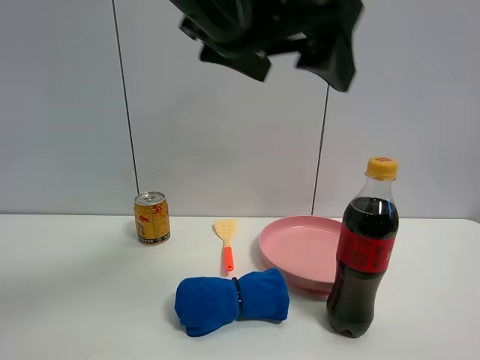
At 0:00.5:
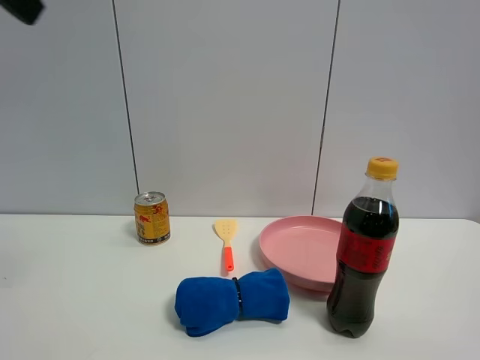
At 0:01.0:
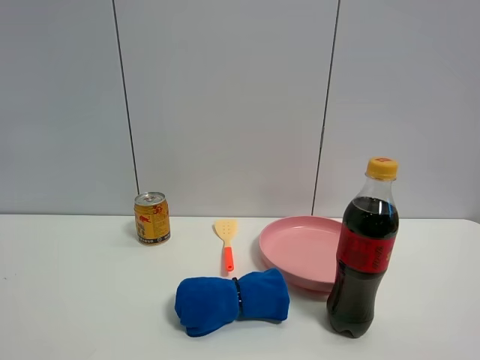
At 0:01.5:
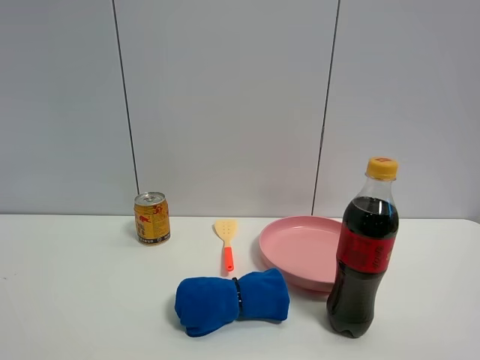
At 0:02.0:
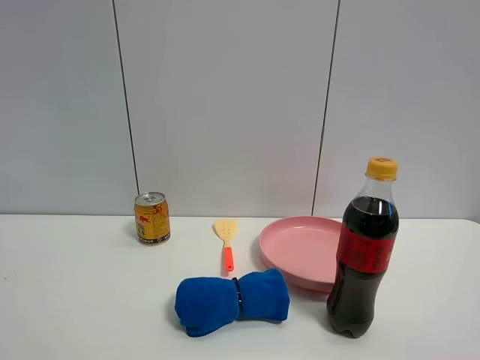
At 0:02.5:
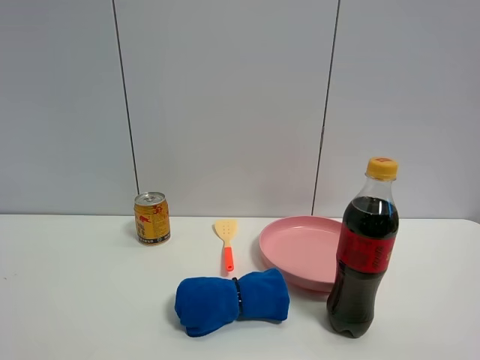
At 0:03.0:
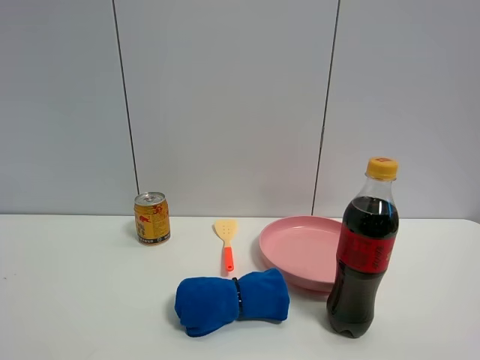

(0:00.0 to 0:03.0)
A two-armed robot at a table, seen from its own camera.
Task of the whole recording: the gripper move the object.
0:00.0 - 0:01.5: The left gripper moves to the left and backward, some 35 cm.

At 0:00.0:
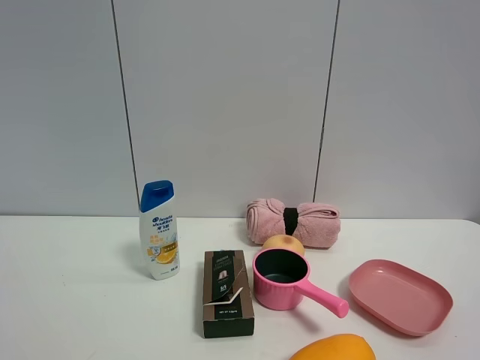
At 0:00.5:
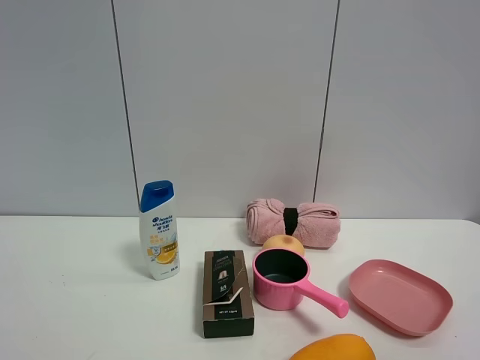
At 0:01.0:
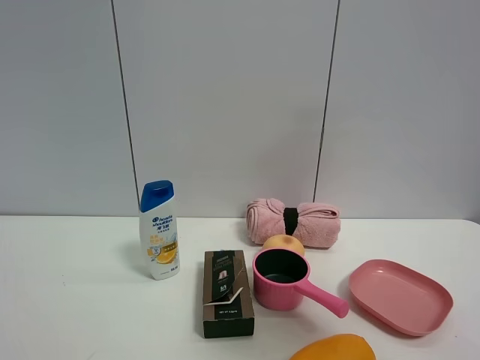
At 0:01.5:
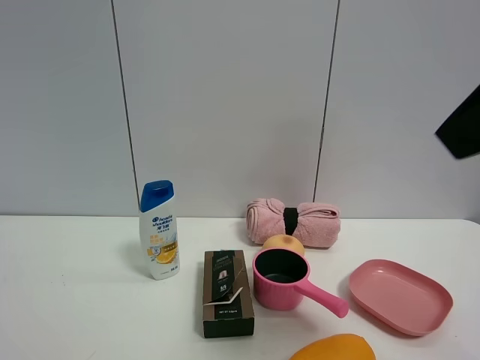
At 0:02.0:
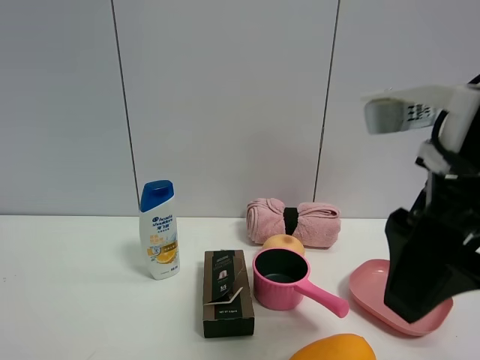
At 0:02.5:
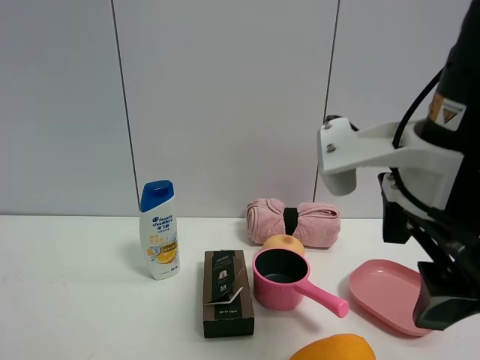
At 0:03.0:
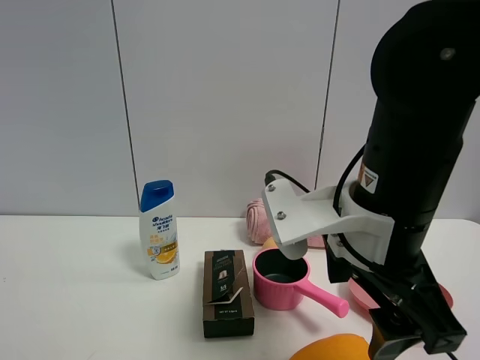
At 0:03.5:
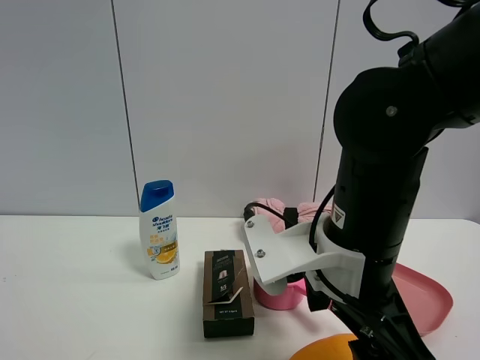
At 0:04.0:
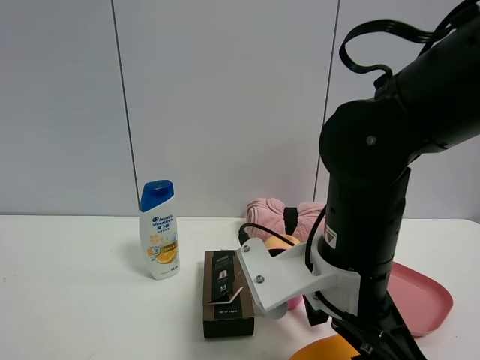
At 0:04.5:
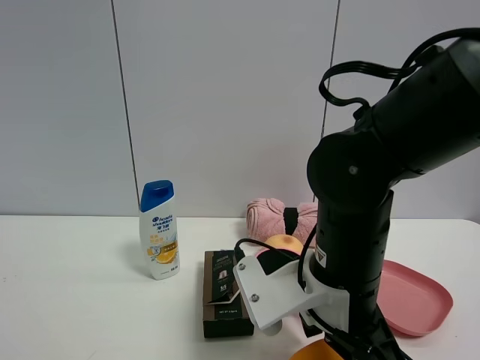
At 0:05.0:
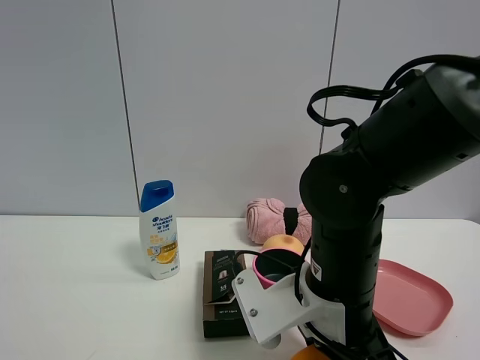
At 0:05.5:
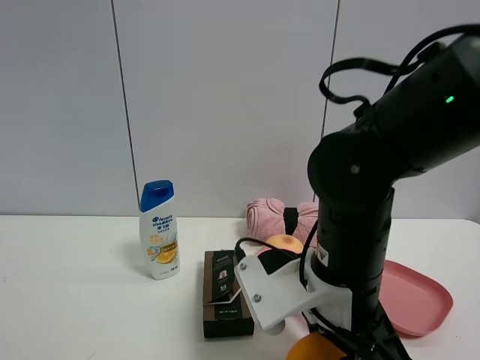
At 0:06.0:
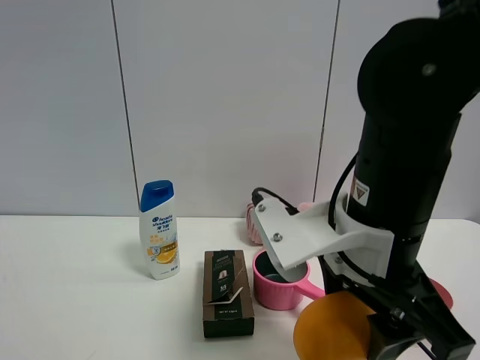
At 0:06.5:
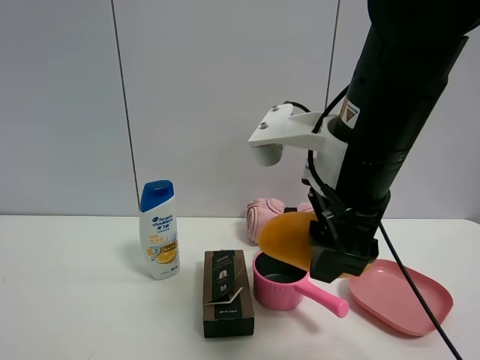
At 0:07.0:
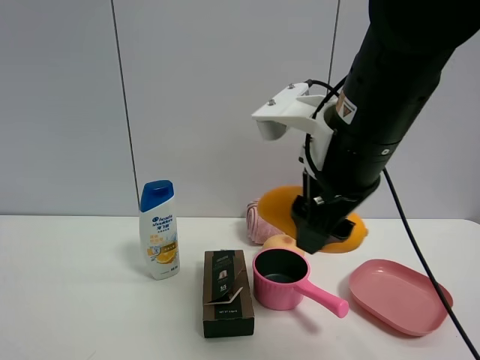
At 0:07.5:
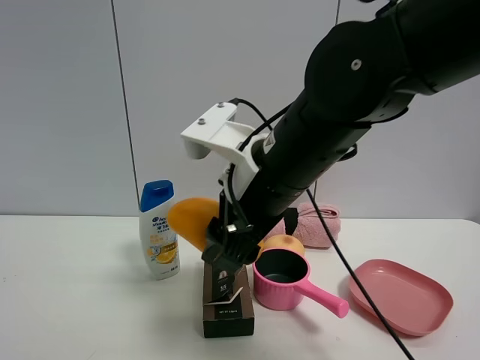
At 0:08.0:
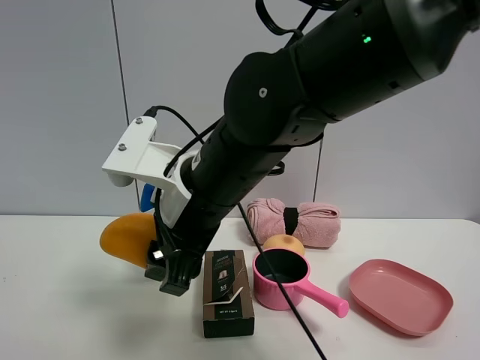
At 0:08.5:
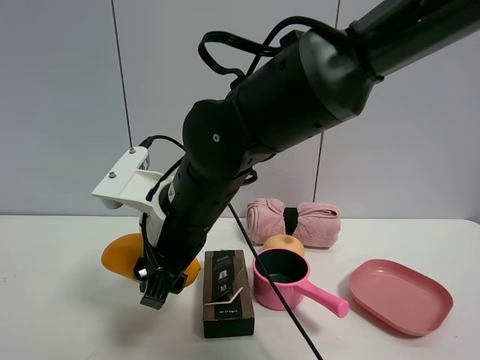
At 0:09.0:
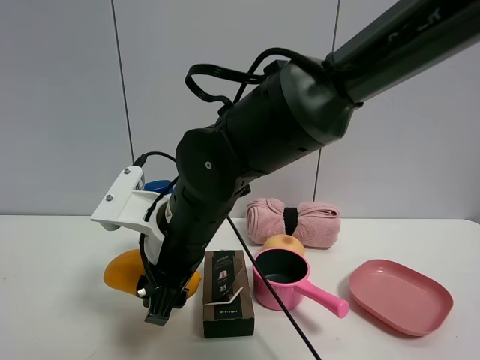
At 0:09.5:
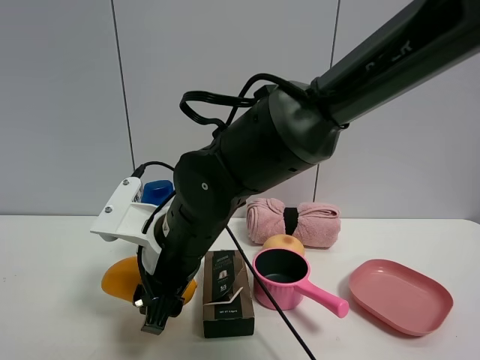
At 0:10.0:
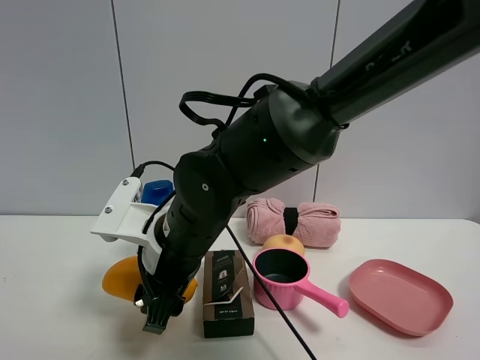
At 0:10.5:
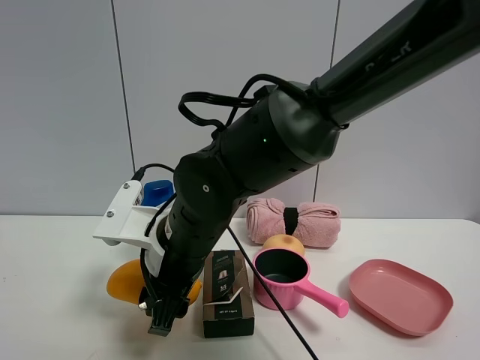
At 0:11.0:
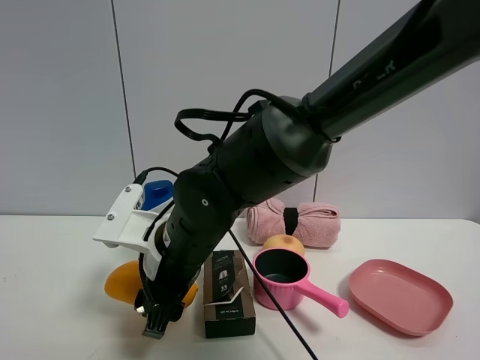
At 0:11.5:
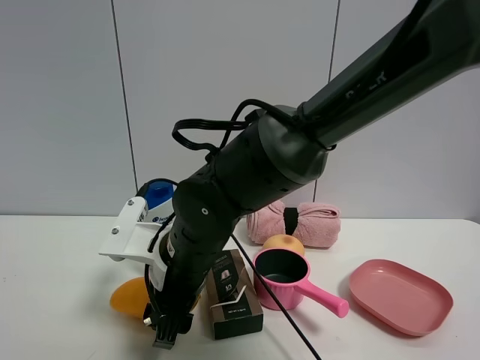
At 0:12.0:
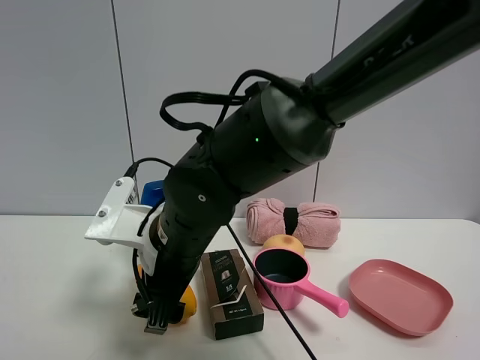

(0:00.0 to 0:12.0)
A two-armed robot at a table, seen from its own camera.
Task of the whole recording: the gripper move the object.
Step, 0:00.0 - 0:05.0: Grasp the mango with the right gripper.
Step, 0:05.5 - 0:11.5: Place the mango on the table with the right gripper.
0:00.0 - 0:02.0: The right gripper travels forward and to the left by some 20 cm.
0:02.0 - 0:04.0: The right gripper heads downward, to the left and forward, covering approximately 15 cm.
0:04.0 - 0:06.0: The right gripper heads upward, covering about 5 cm, and closes its fingers.
0:06.0 - 0:08.0: The right gripper heads to the left, covering approximately 15 cm.
0:08.0 - 0:10.0: The right gripper shifts some 5 cm downward.
0:10.0 - 0:12.0: The right gripper opens.

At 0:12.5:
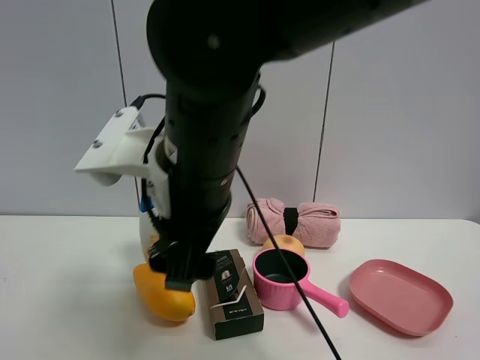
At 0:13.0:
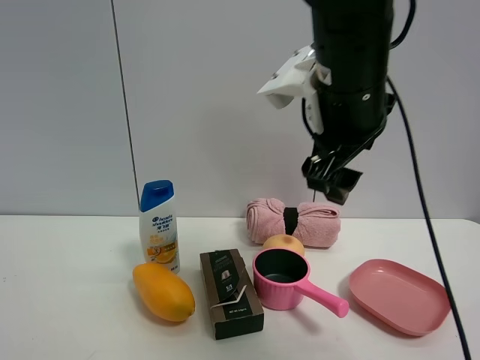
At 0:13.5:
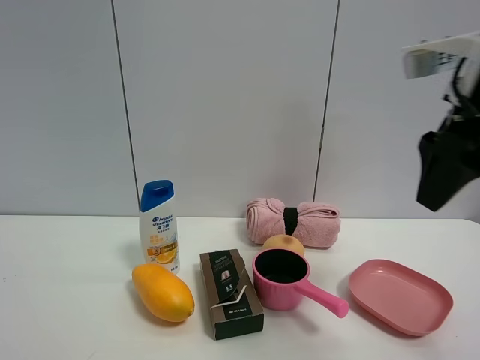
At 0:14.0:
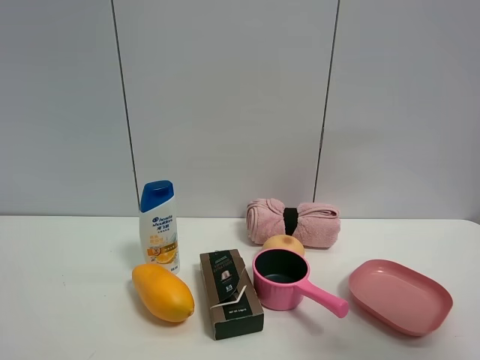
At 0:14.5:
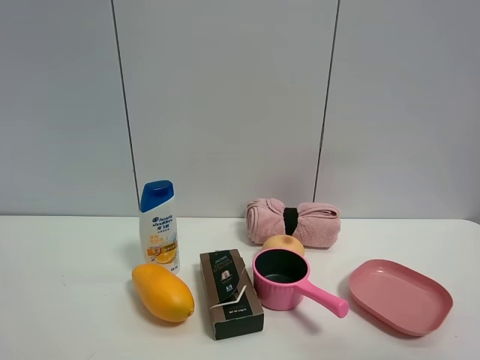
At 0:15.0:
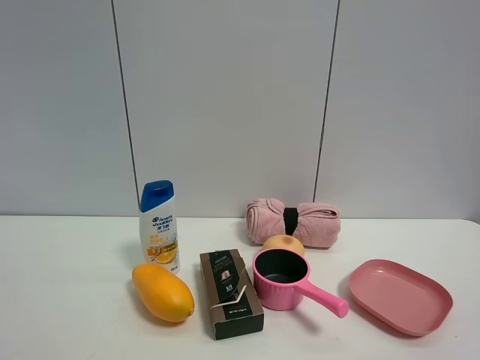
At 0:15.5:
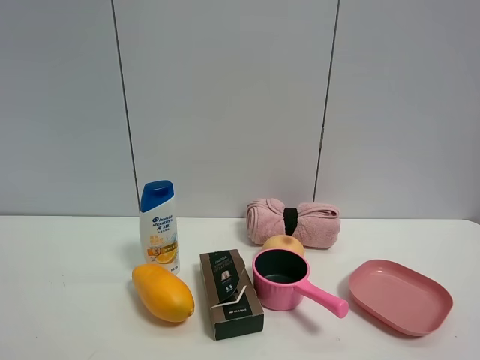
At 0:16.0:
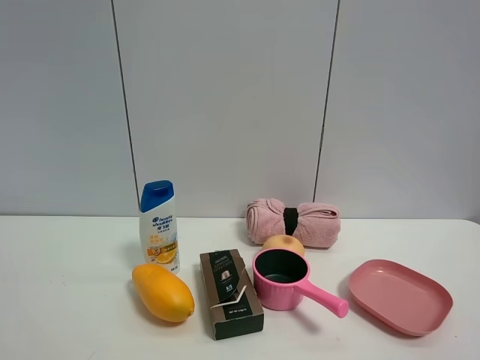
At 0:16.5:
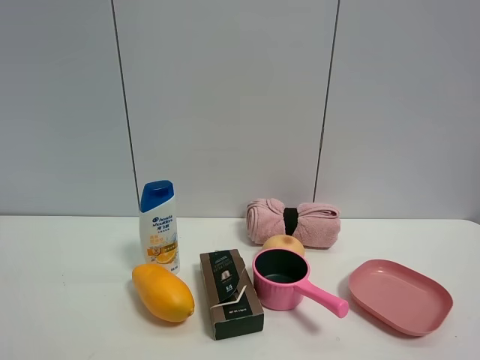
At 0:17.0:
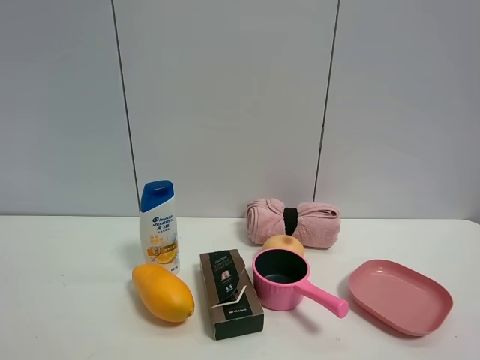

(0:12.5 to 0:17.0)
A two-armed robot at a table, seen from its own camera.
Task of the whole recording: the gripper move the object.
0:12.5 - 0:14.5: The right gripper moves to the right and backward, roughly 35 cm.

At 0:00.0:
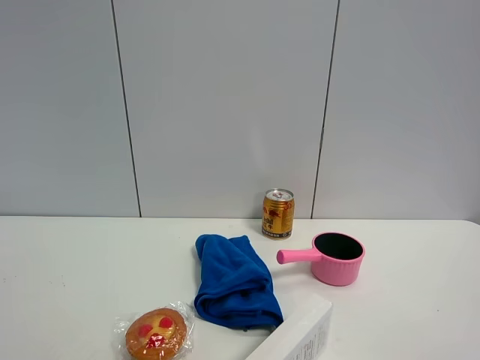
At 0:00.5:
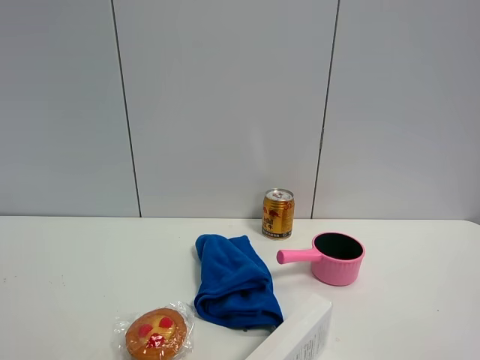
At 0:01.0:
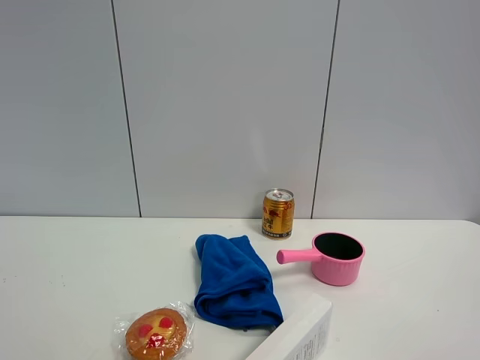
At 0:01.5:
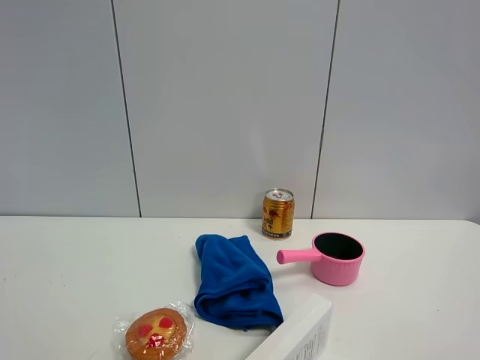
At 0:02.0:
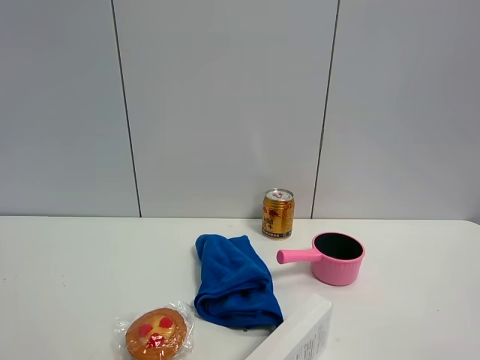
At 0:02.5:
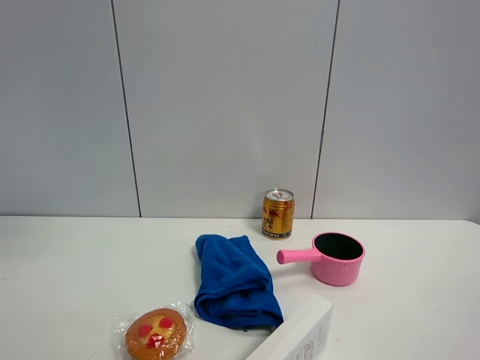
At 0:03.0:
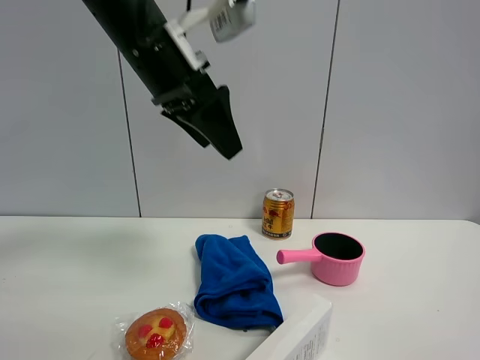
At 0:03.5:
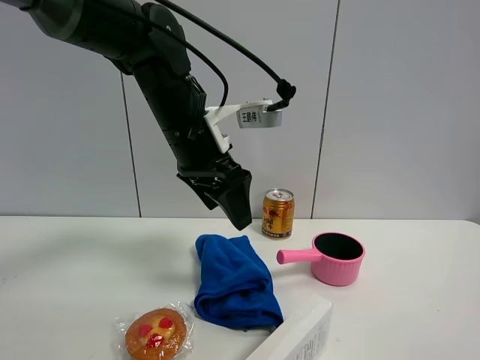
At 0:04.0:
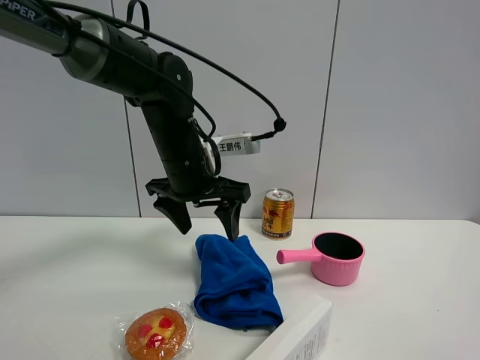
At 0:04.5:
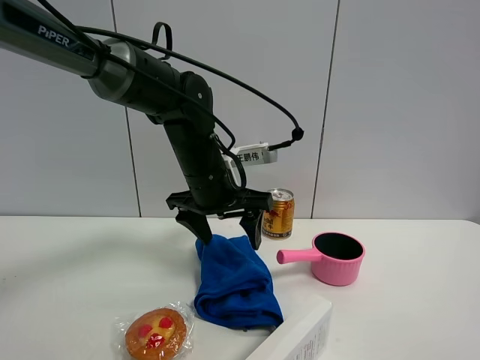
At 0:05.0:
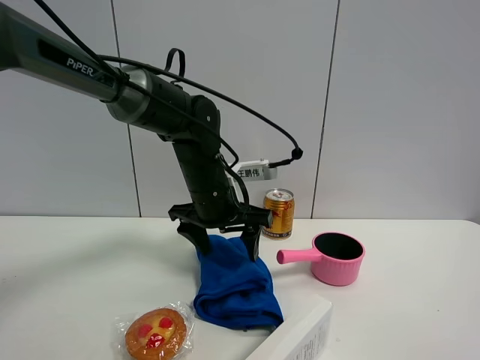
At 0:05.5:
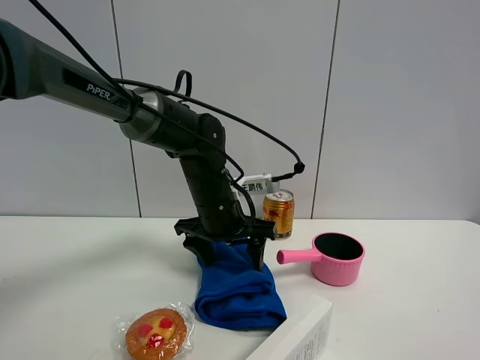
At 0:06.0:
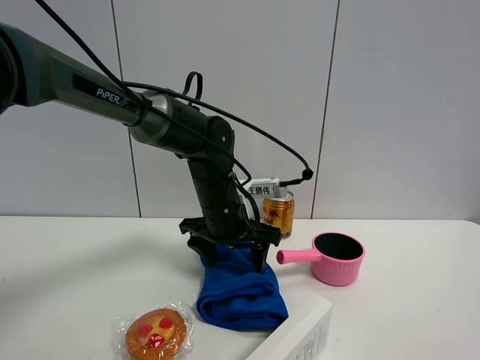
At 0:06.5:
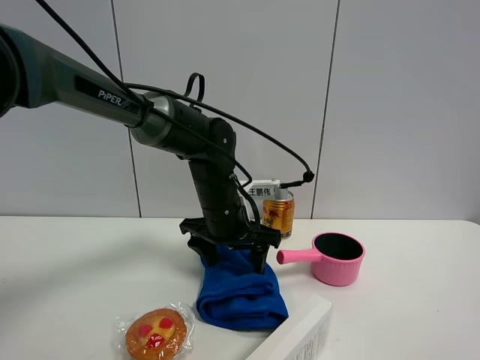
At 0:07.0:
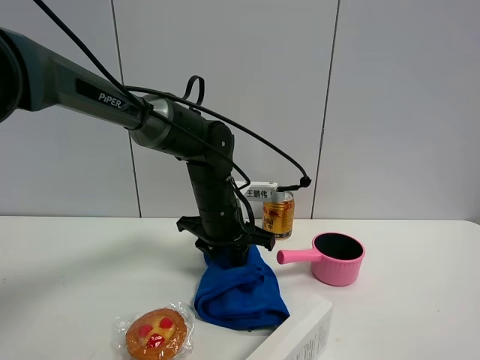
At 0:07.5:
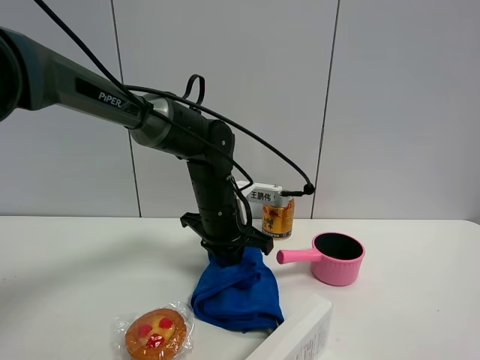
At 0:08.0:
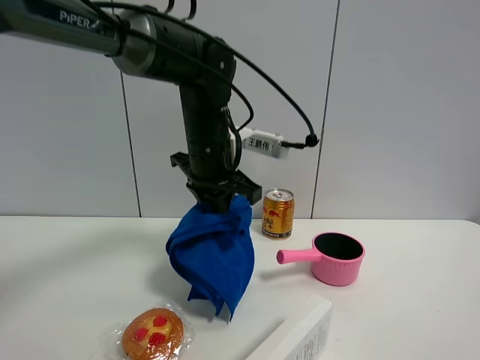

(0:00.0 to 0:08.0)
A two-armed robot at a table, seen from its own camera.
Task of the whole recording: the gripper move the object.
Step, 0:00.0 - 0:07.5: Grasp the blue towel with the left gripper.
0:02.0 - 0:04.0: The left gripper travels forward, downward and to the right by roughly 50 cm.
0:04.0 - 0:06.0: The left gripper travels downward by roughly 5 cm.
0:06.0 - 0:08.0: The left gripper shifts approximately 10 cm upward, and closes its fingers.
